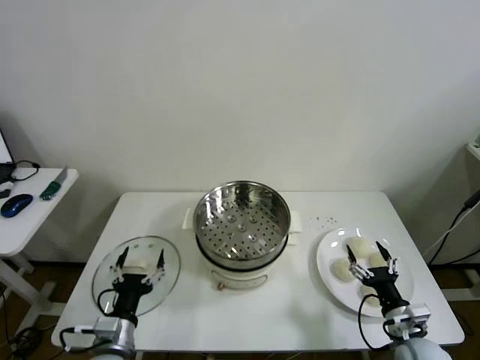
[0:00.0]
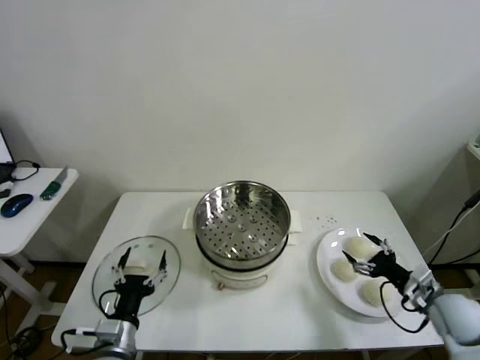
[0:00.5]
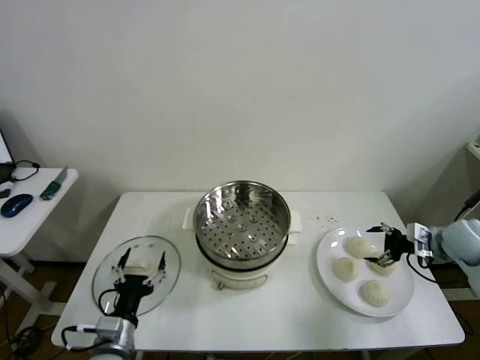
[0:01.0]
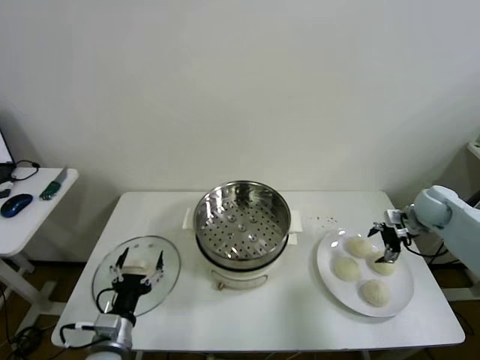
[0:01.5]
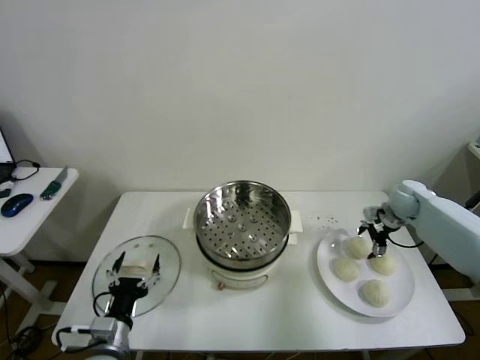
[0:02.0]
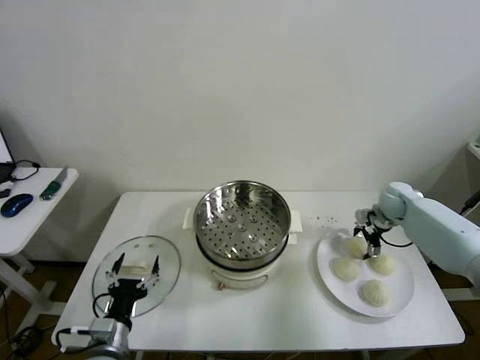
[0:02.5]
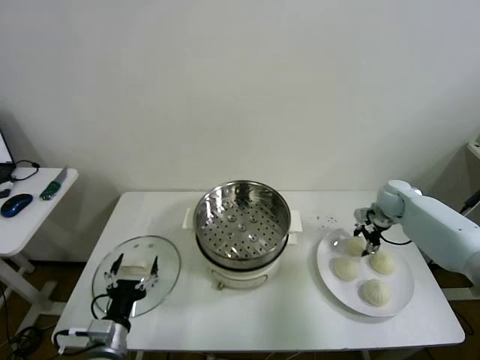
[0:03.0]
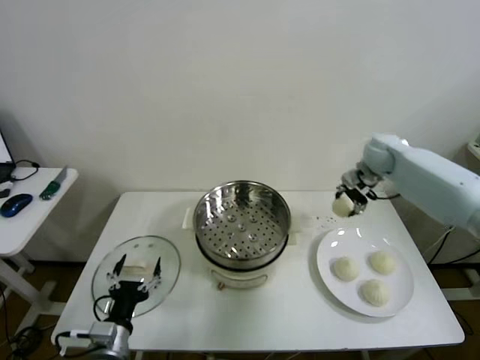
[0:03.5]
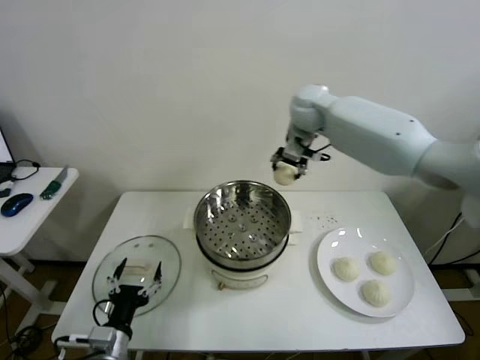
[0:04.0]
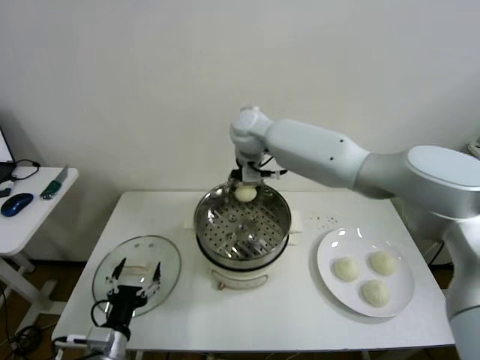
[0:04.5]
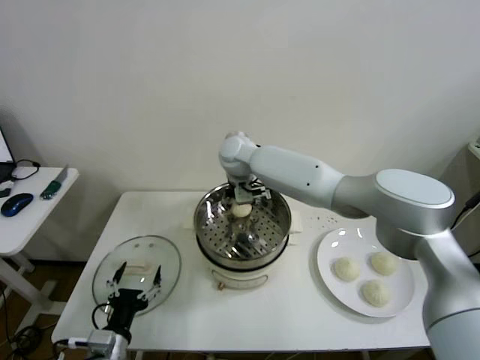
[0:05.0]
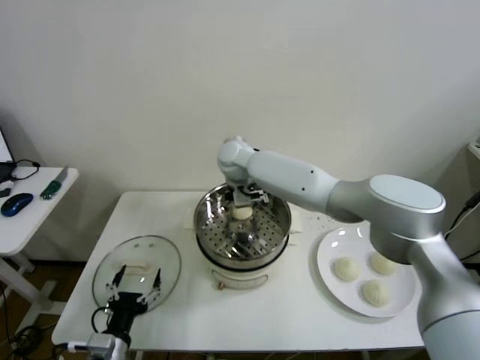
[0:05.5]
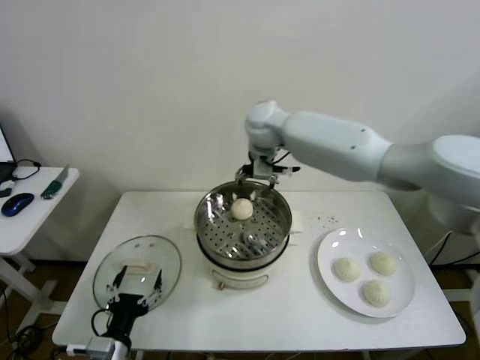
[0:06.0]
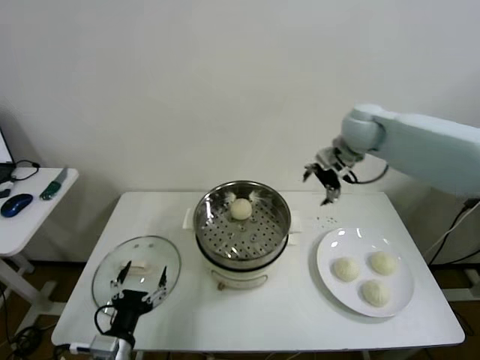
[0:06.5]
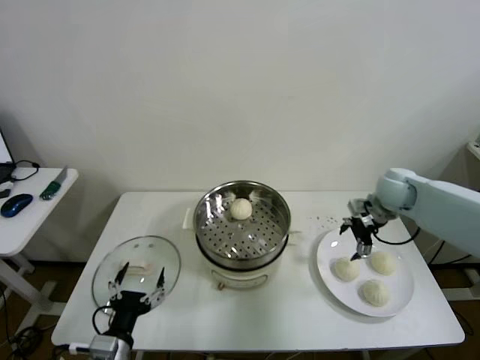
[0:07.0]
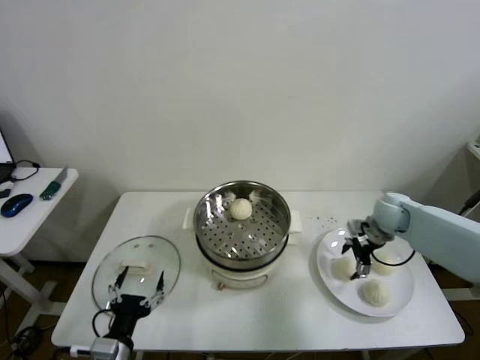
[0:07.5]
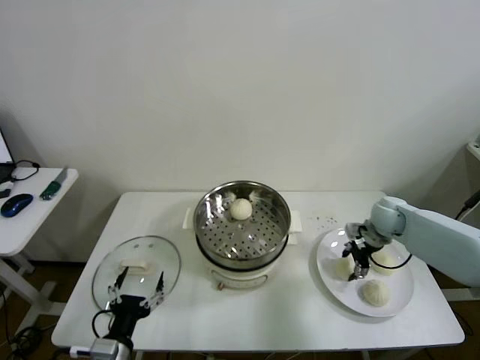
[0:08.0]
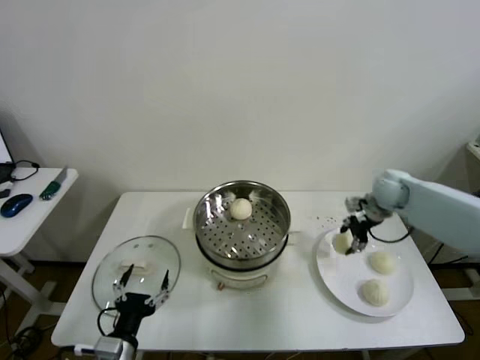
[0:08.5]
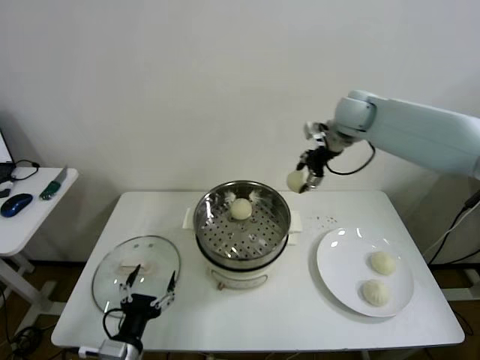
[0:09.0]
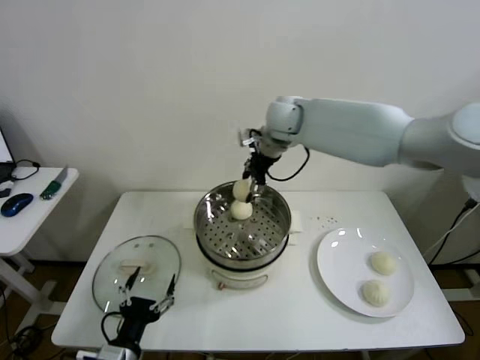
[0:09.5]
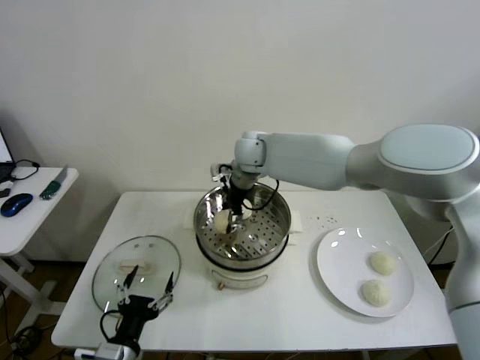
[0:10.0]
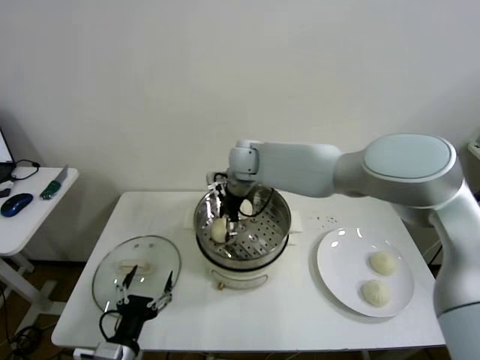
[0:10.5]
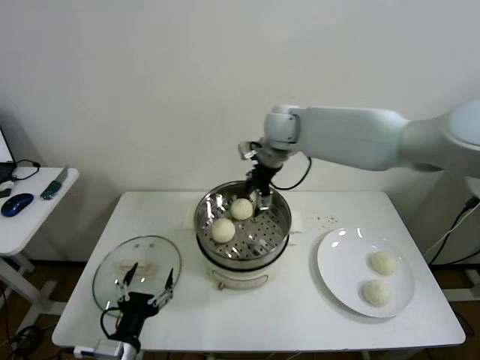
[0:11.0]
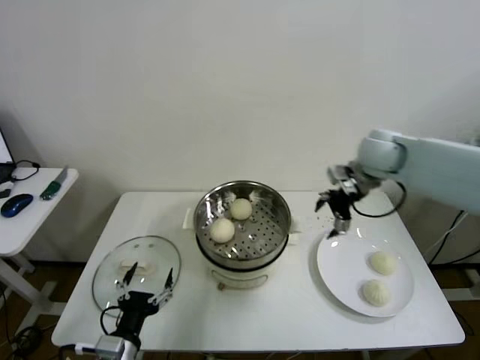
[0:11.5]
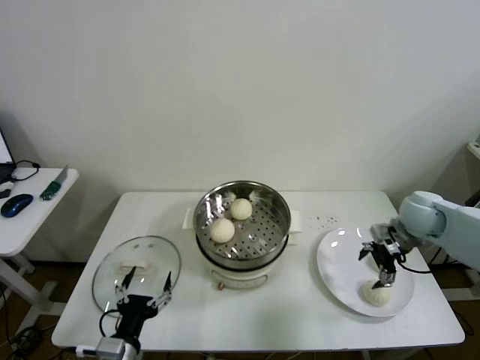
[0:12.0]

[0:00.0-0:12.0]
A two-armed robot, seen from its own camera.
Step, 0:00.0 to 0:02.5: Grasp the baozi in the plate with right gripper.
Step, 0:03.0 to 0:05.0: Place the baozi on the steamer with right gripper.
Step, 0:05.5 to 0:07.5: Grasp the baozi in the plate with right gripper.
Step, 0:08.5 to 0:10.0: Place the baozi on the steamer with right gripper.
0:02.0 to 0:04.0: The right gripper goes some 40 cm to the left and upward, and closes its fingers.
0:04.0 to 0:06.0: The right gripper moves to the left, some 10 cm, and opens.
0:06.0 to 0:08.0: The right gripper goes some 40 cm to the right and downward, and closes up.
0:08.0 to 0:10.0: The right gripper shifts some 40 cm to the left and upward.
0:10.0 to 0:12.0: The right gripper moves to the right, approximately 40 cm, and opens up.

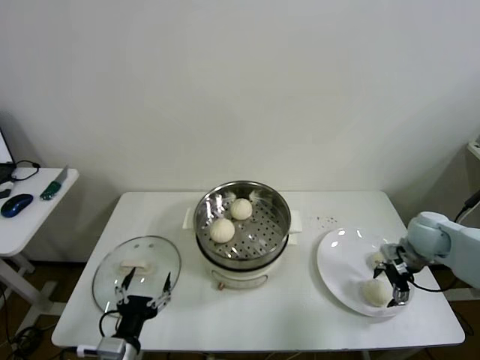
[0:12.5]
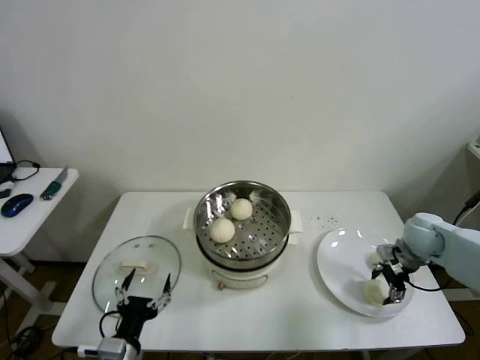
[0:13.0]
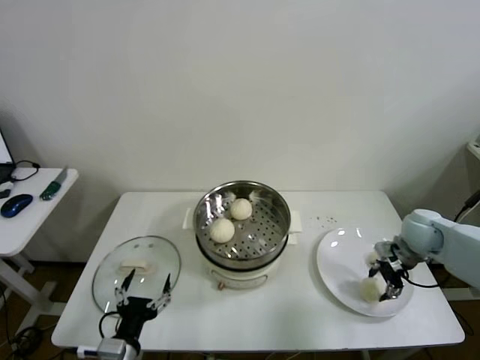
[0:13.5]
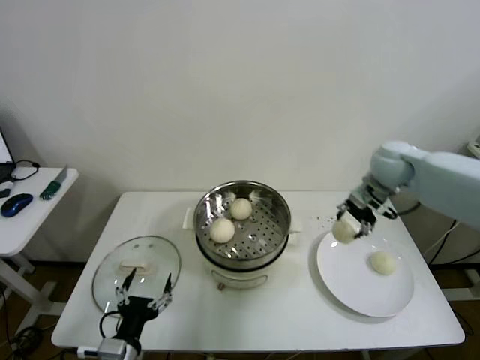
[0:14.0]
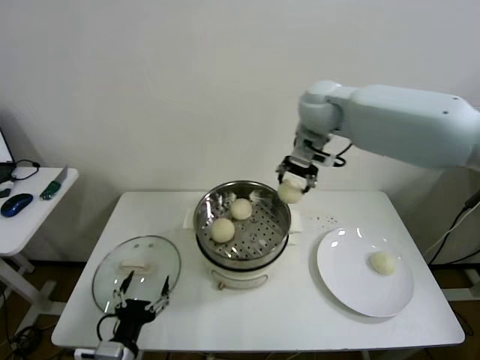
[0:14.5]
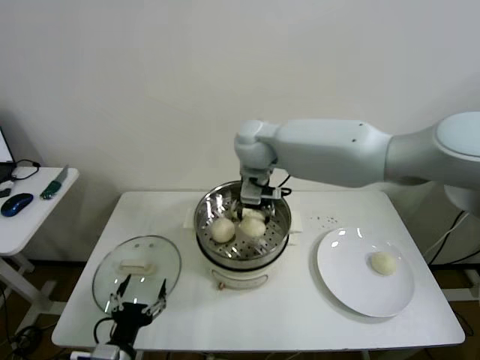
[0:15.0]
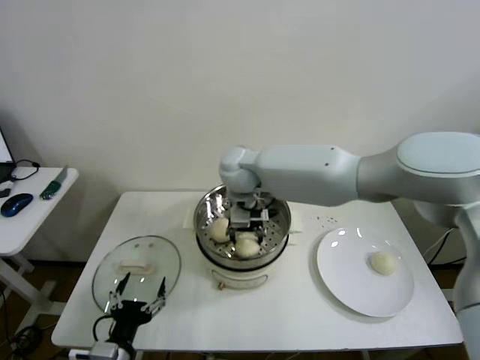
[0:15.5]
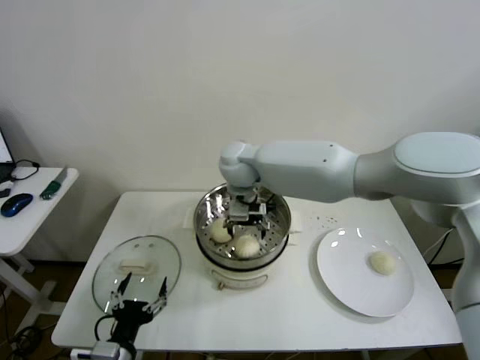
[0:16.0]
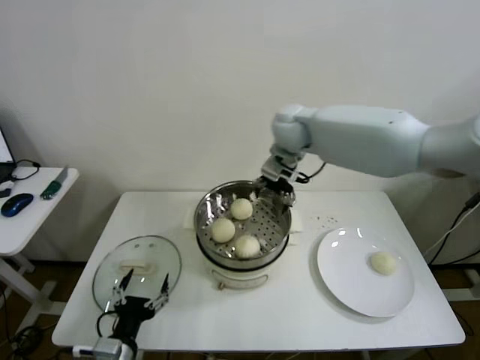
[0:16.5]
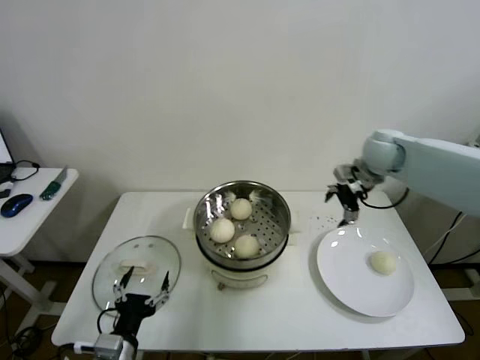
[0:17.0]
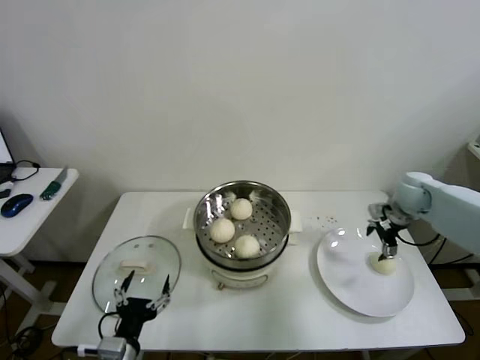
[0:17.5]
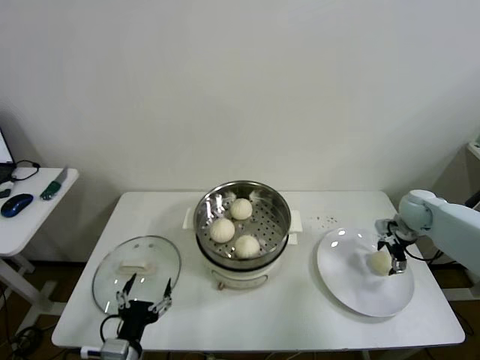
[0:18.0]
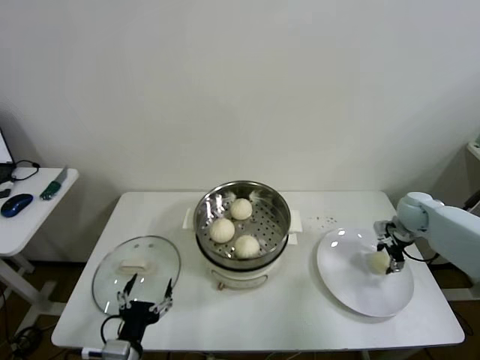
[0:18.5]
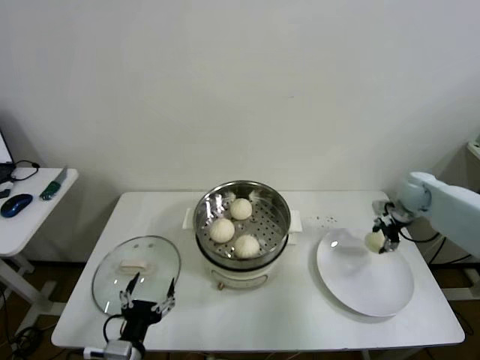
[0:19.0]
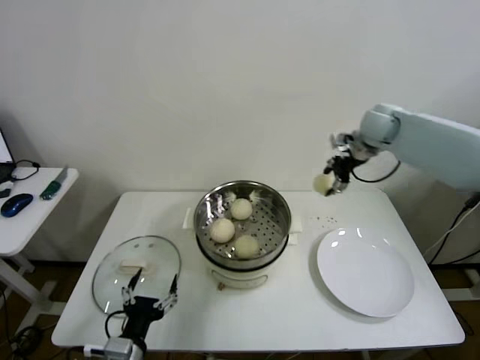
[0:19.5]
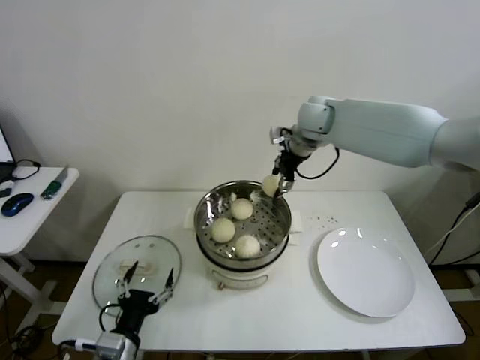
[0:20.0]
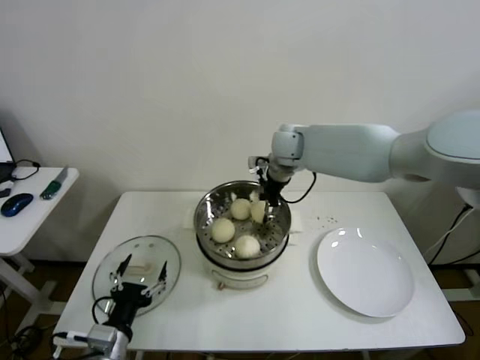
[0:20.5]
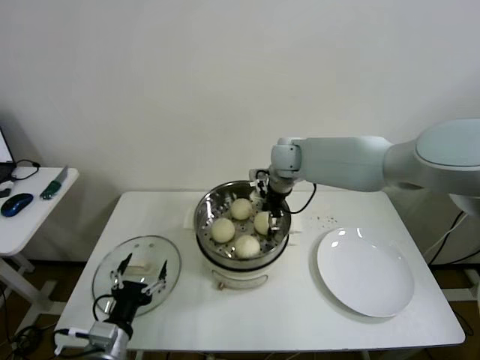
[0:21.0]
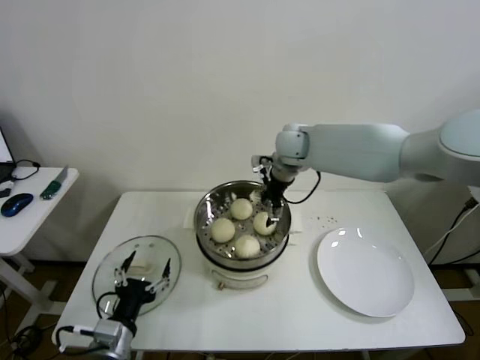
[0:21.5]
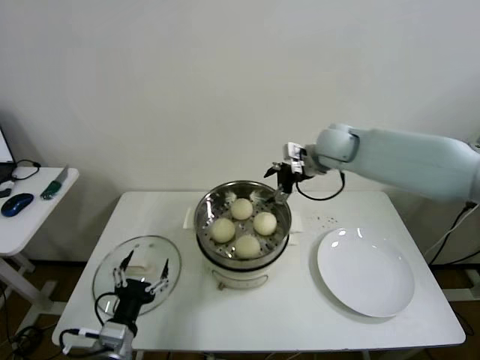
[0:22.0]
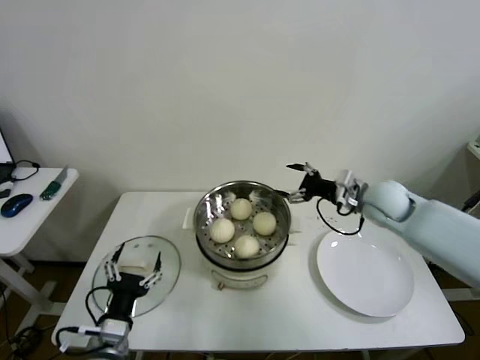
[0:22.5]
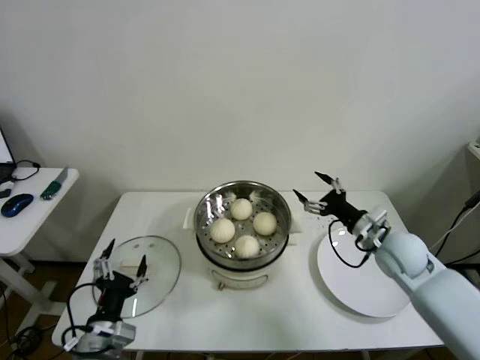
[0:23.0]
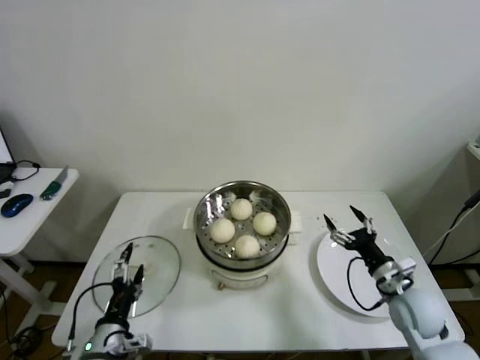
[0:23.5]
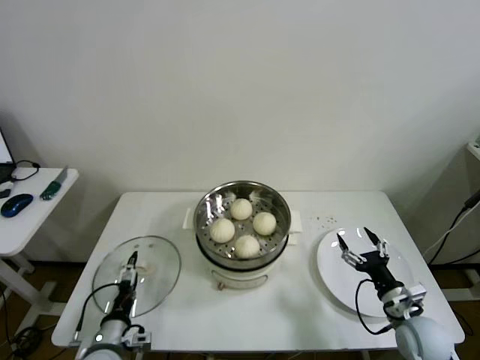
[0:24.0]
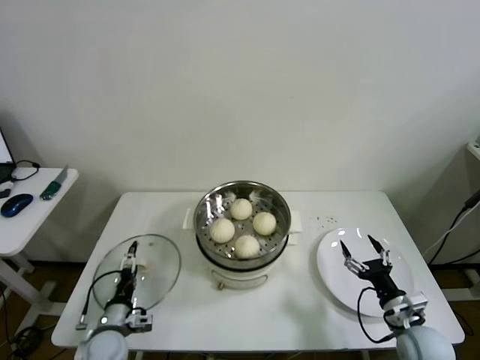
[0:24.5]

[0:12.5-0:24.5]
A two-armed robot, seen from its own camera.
Step, 0:13.5 to 0:15.5: Place the baozi on the steamer with right gripper.
Step, 0:16.0 to 0:18.5: Grasp the baozi in the plate with right gripper.
Step, 0:19.0 to 0:21.0: Place the baozi on the steamer with right gripper.
0:12.5 to 0:14.5: The right gripper goes some 40 cm to the left, upward and forward, and closes.
0:14.5 to 0:16.5: The right gripper heads downward, covering approximately 5 cm, moves some 15 cm to the left and comes back, and opens its fingers.
0:16.5 to 0:18.5: The right gripper goes some 40 cm to the right and downward, and closes its fingers.
0:18.5 to 0:20.5: The right gripper heads to the left and upward, covering about 40 cm, and closes.
0:20.5 to 0:22.5: The right gripper goes some 25 cm to the right, backward and downward, and opens up.
0:22.5 to 0:24.5: The left gripper goes about 15 cm downward, forward and to the left. Meanwhile the right gripper travels backward and downward by roughly 30 cm.

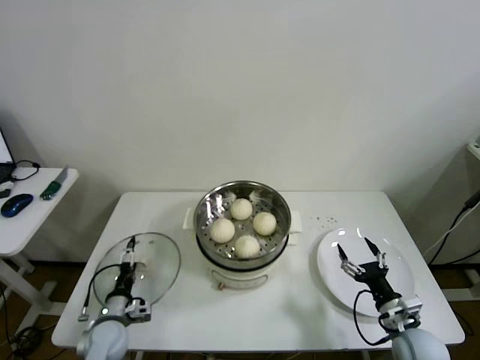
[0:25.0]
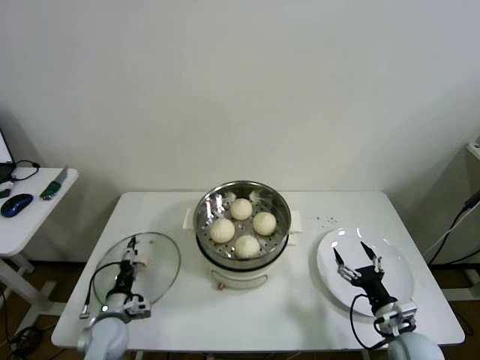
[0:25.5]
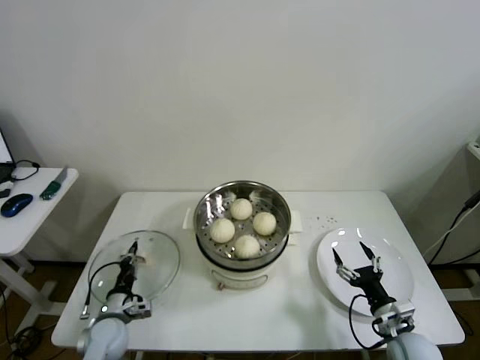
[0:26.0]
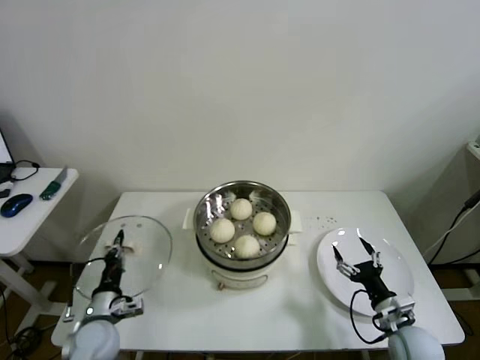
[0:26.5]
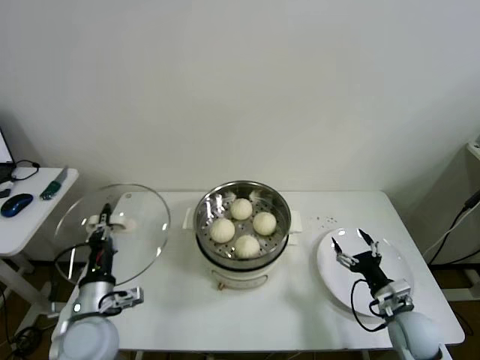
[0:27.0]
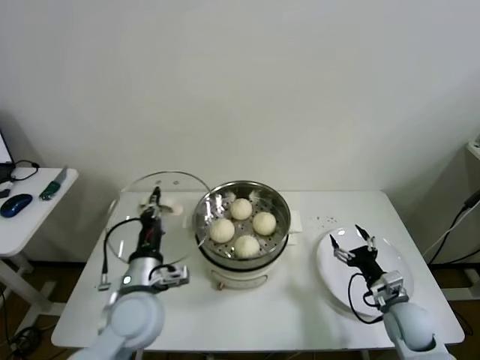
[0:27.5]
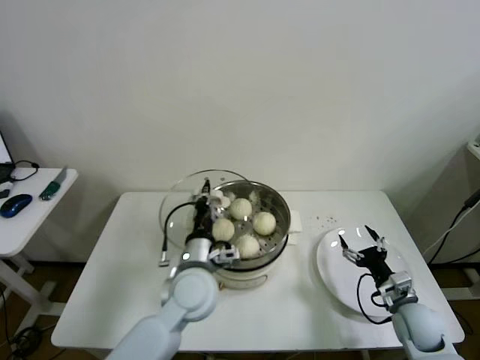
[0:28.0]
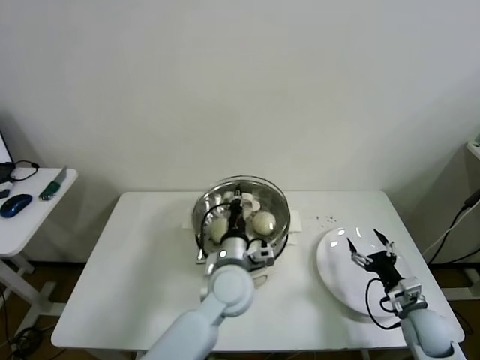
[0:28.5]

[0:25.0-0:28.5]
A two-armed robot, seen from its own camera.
0:25.0 to 0:27.0: The left gripper goes about 15 cm upward, and closes up.
0:27.0 to 0:28.5: The left gripper travels to the right by about 25 cm.
